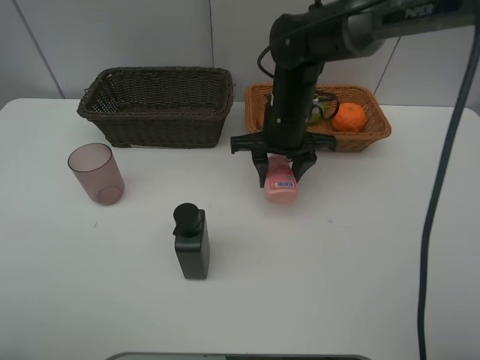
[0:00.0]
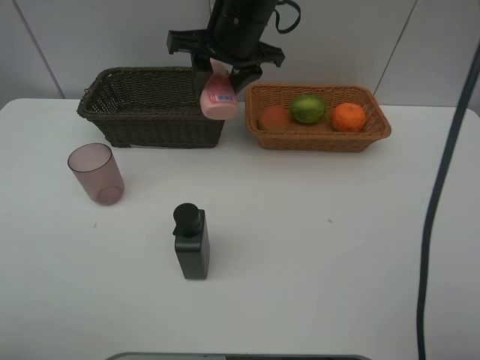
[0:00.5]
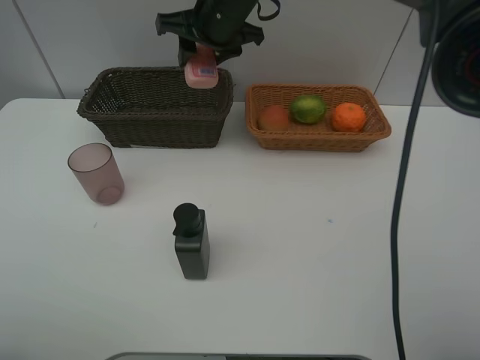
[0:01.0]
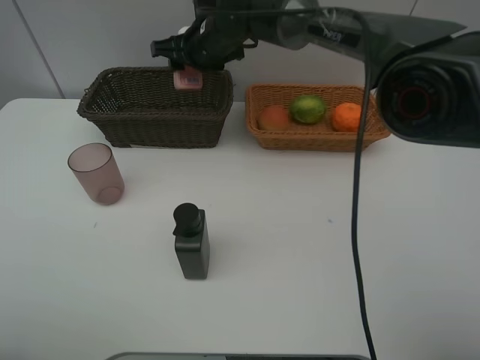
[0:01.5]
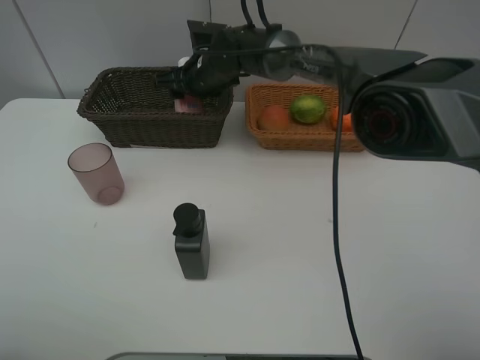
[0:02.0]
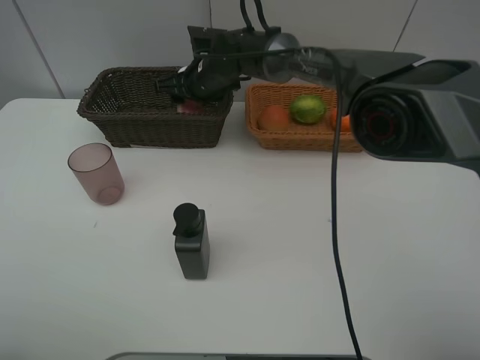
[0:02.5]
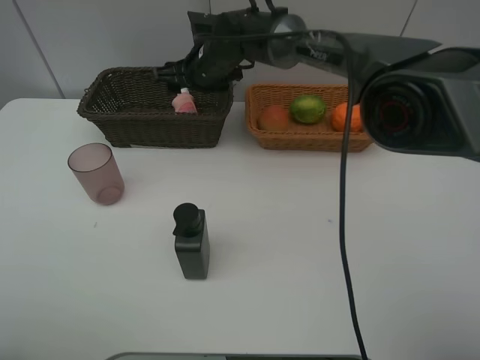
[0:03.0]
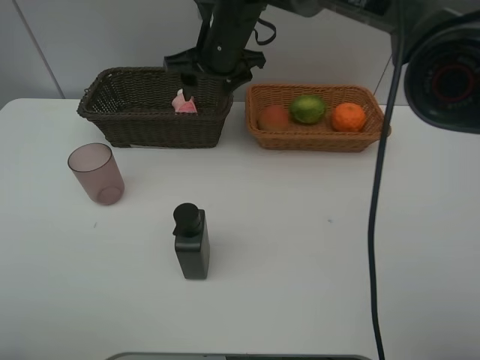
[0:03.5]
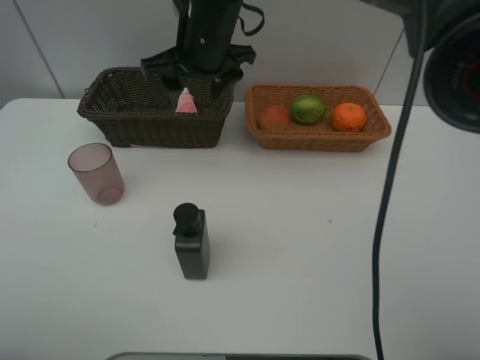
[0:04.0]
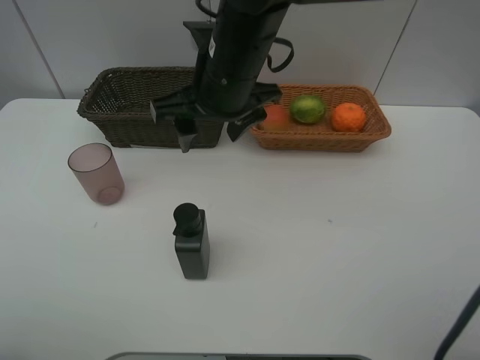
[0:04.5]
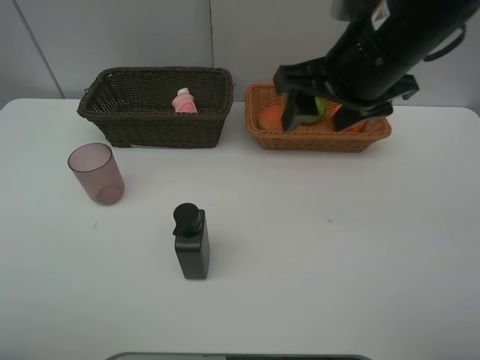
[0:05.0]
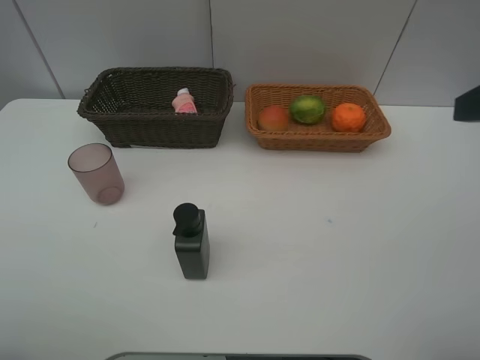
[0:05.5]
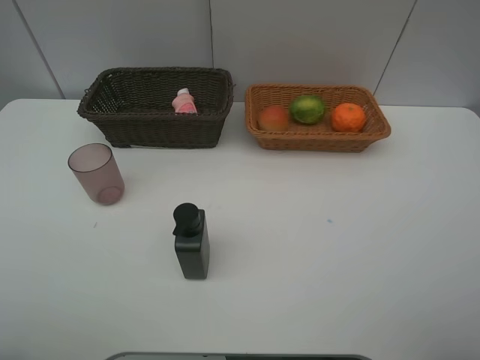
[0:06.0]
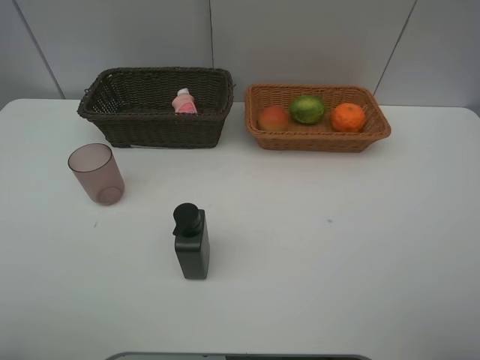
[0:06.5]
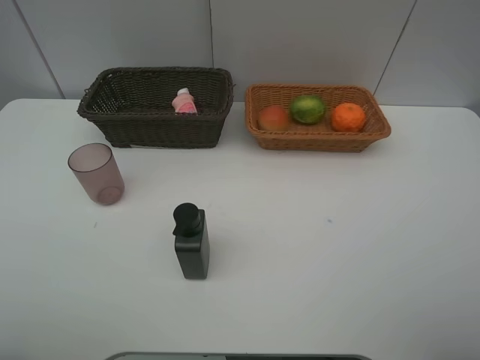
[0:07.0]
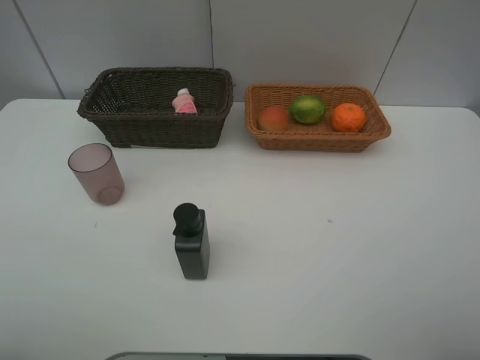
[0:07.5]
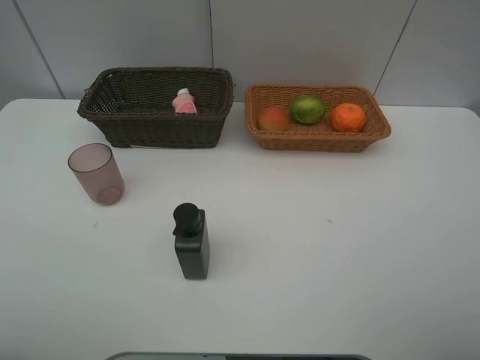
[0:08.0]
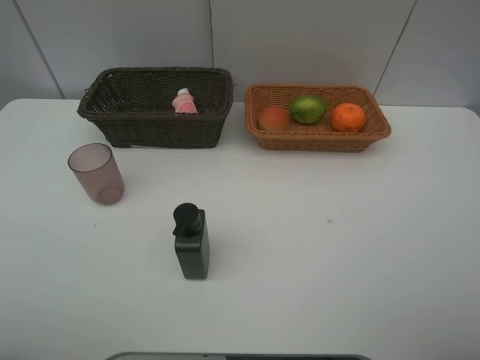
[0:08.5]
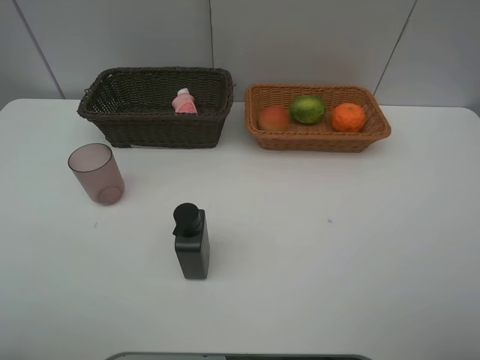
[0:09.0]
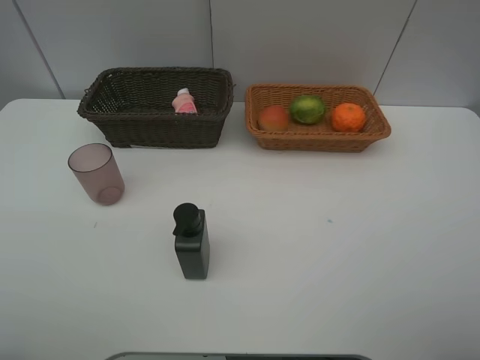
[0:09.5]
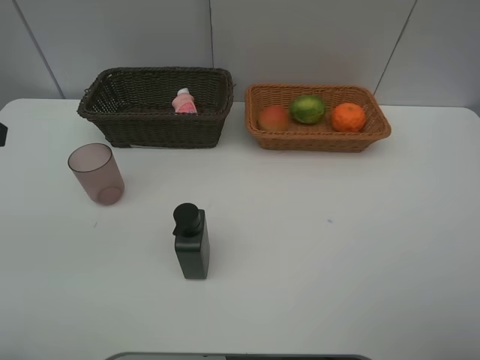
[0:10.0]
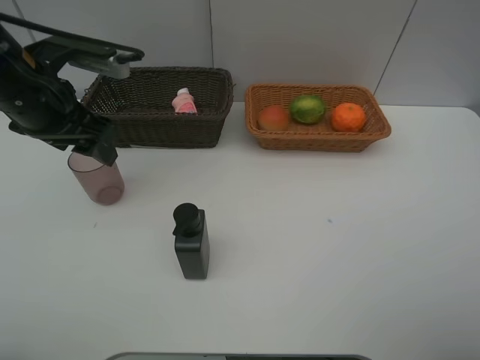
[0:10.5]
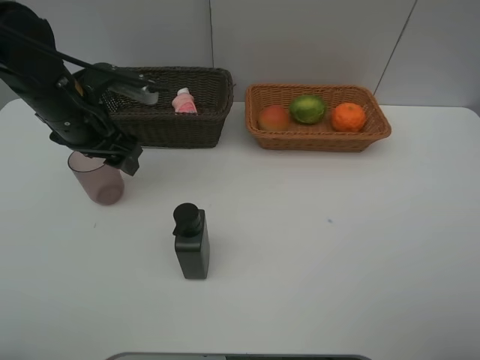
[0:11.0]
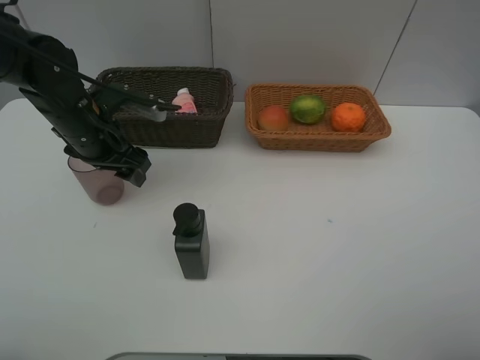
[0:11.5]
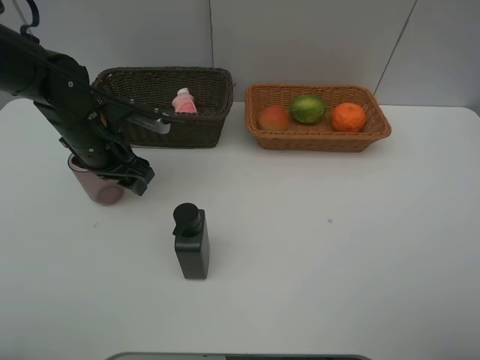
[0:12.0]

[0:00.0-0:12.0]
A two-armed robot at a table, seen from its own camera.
Task of the whole recording: place multiple objects separately in different baskets.
0:00.0 to 0:02.0: The right gripper heads forward and to the left, covering about 15 cm, and moves roughly 10 cm upward and comes back.
0:02.0 to 0:04.0: The right gripper is displaced upward and backward by roughly 15 cm, and opens.
0:04.0 to 0:06.0: The right gripper shifts roughly 50 cm backward and to the right.
0:10.0 to 0:12.0: The left gripper travels downward, forward and to the right by some 25 cm.

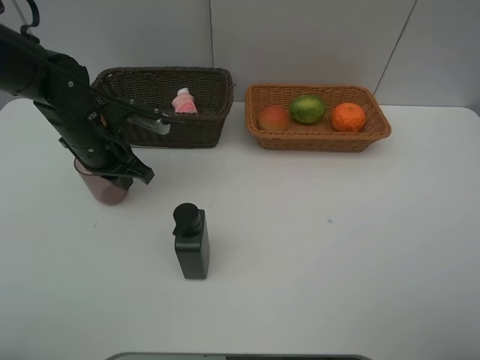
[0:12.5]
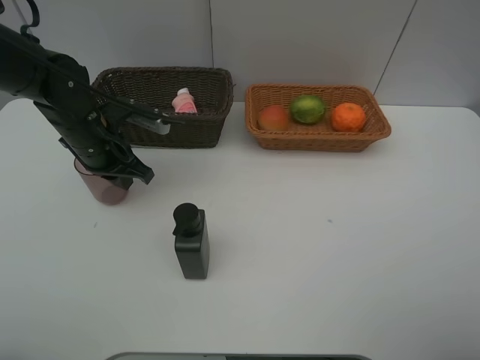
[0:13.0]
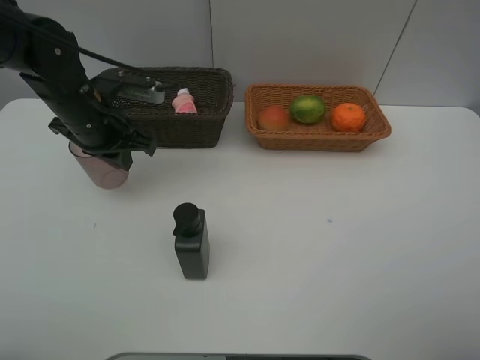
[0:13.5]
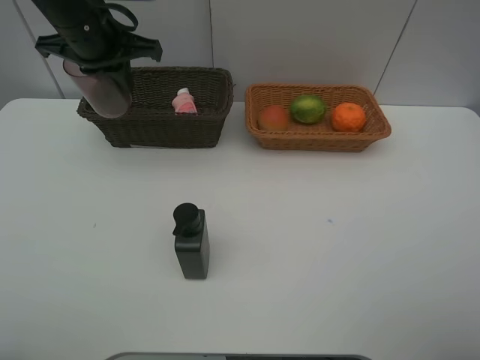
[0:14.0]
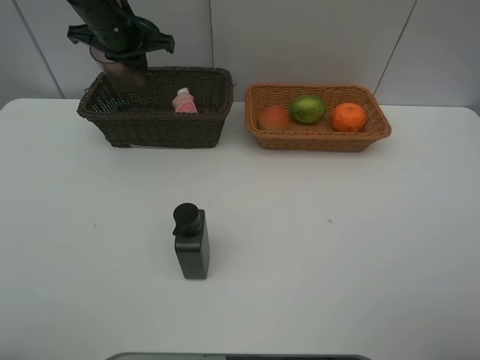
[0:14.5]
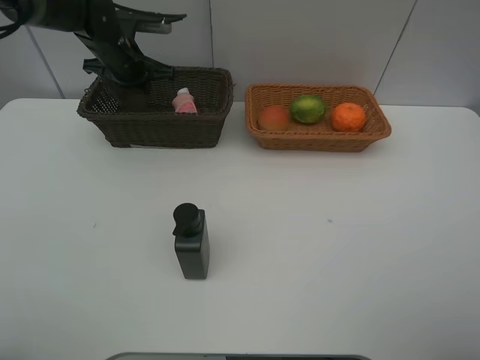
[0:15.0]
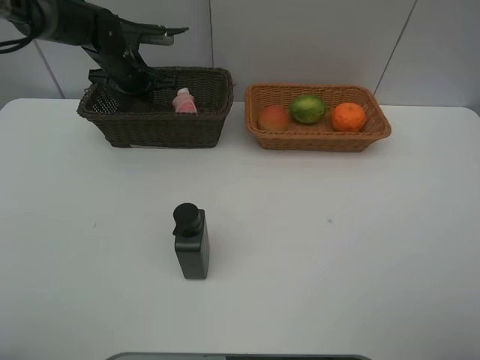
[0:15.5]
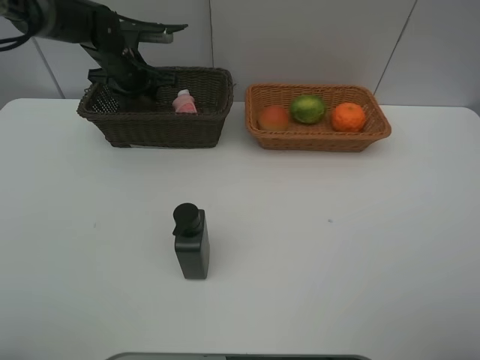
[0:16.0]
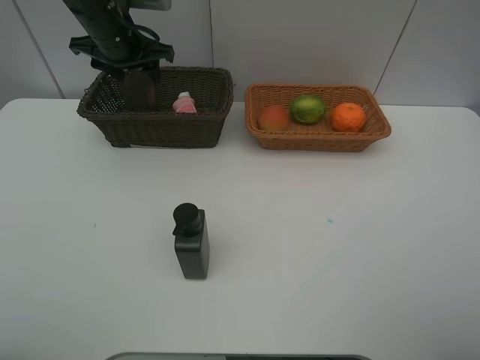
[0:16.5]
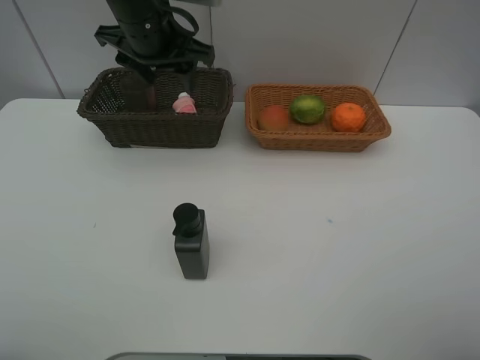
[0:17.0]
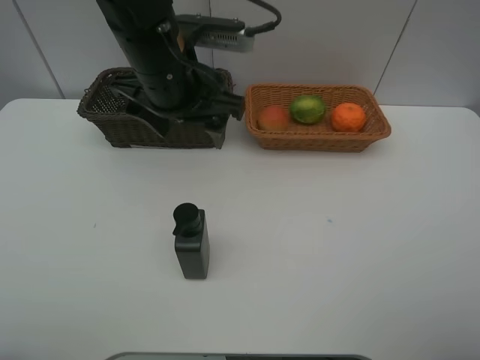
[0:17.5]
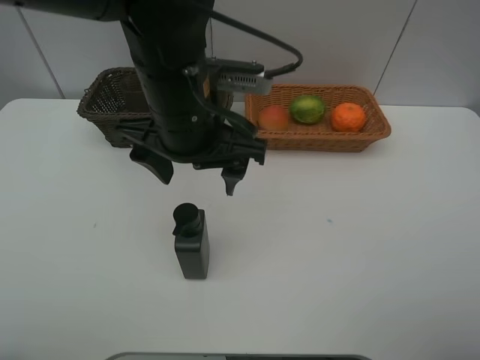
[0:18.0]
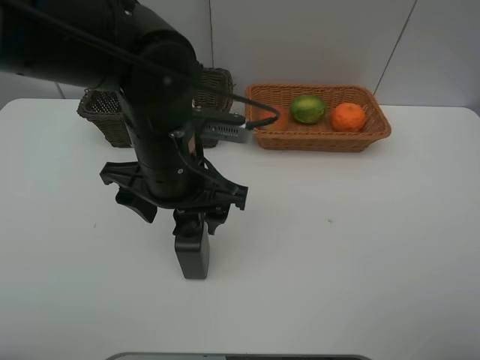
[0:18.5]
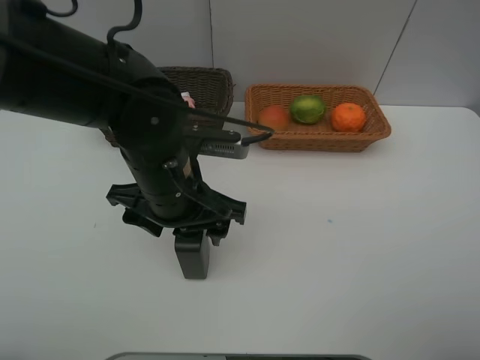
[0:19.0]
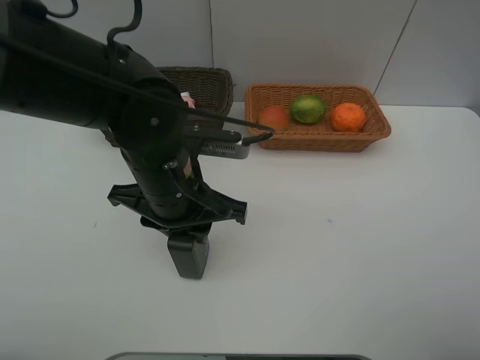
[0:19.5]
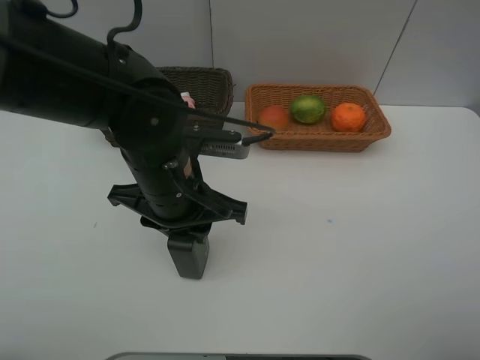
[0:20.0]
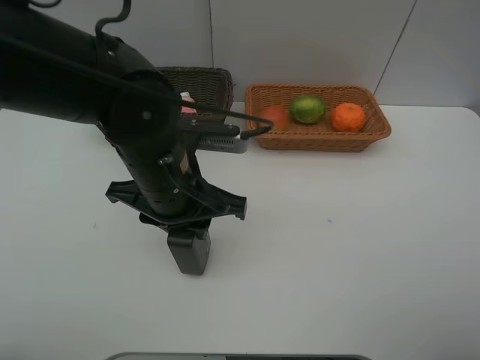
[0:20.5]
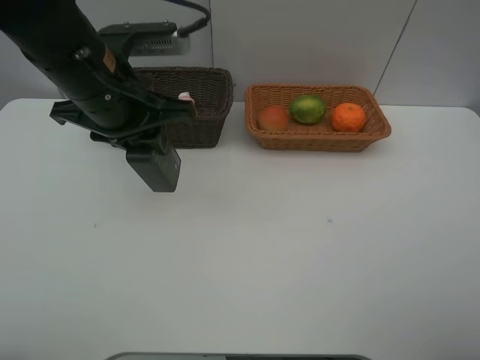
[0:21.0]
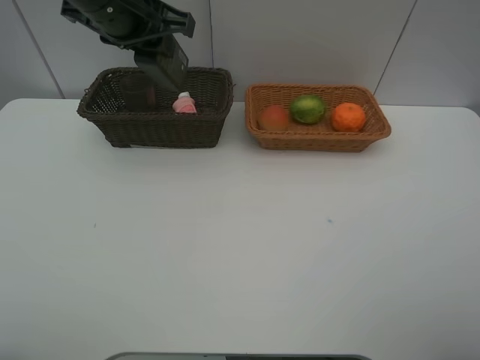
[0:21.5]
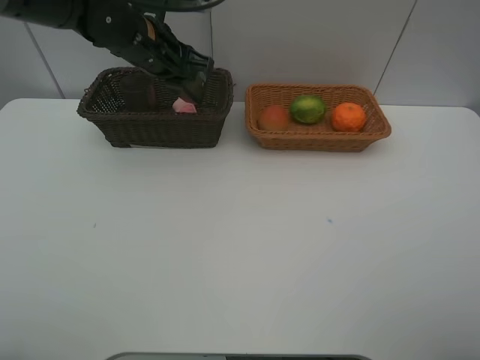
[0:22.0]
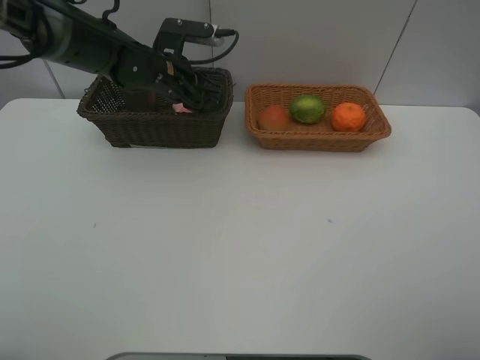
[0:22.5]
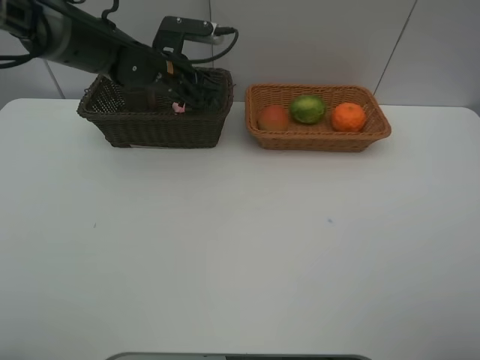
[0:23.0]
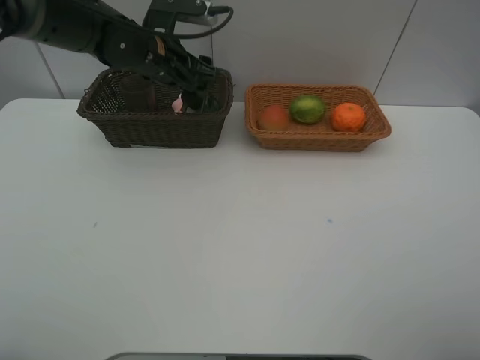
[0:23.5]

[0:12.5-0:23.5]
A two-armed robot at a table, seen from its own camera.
Task of the whole recording: place multiple objects separately in different baskets.
0:12.5 to 0:14.5: The left gripper goes about 15 cm forward and upward.
0:14.5 to 0:16.0: The left gripper is displaced downward by approximately 5 cm, and opens its fingers.
0:16.0 to 0:18.0: The left gripper travels backward and to the right by approximately 30 cm, and opens up.
0:18.0 to 0:20.0: The left gripper moves downward, some 5 cm, and closes its fingers.
0:20.0 to 0:21.5: The left gripper heads forward, upward and to the left, covering roughly 20 cm.
0:21.5 to 0:23.5: The left gripper goes some 10 cm downward and forward, and opens.

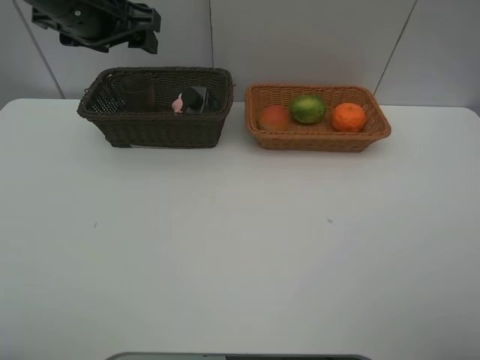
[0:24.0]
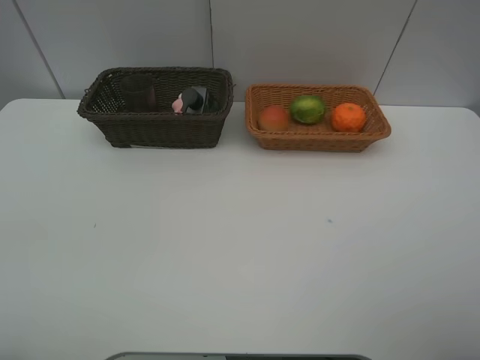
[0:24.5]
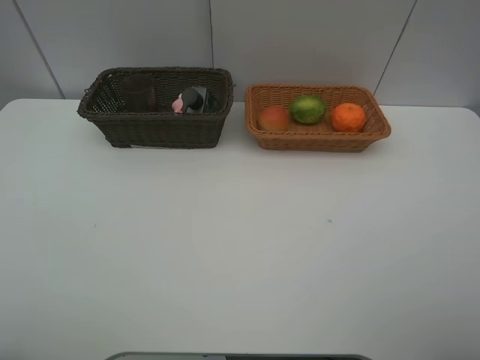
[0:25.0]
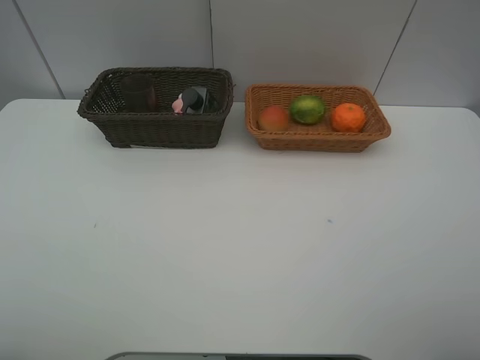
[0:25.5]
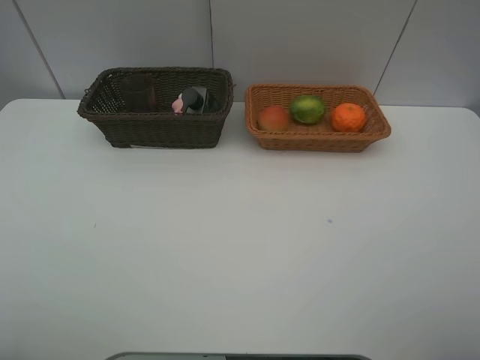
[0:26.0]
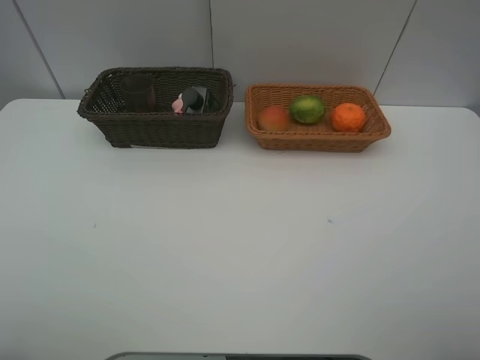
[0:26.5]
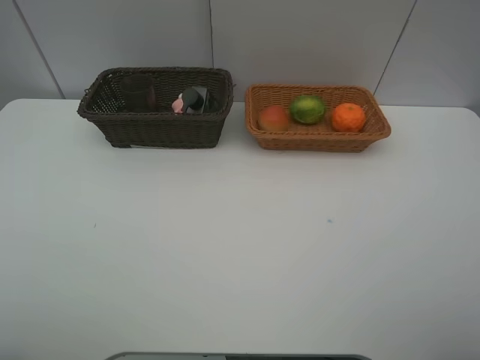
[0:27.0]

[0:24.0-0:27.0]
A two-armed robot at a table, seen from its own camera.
Task of the whole recording: place multiple objects separately in different baskets.
0:24.0 to 0:25.5: The left gripper shifts approximately 35 cm backward.
